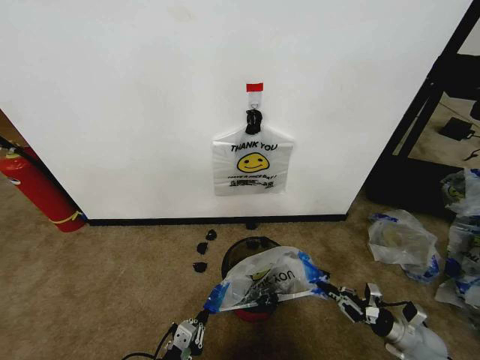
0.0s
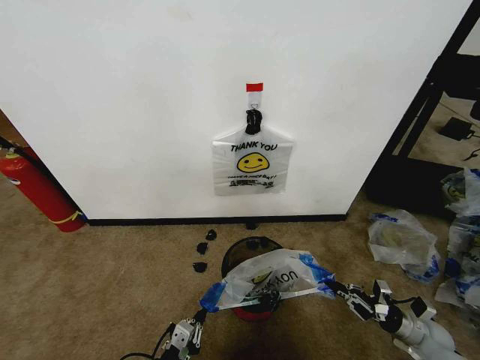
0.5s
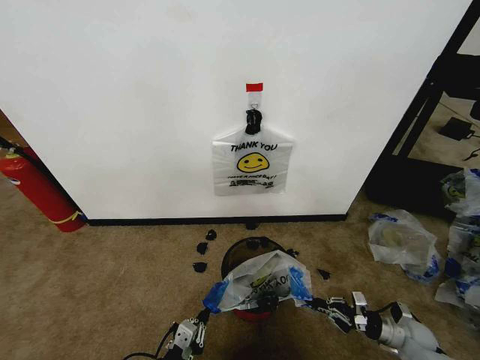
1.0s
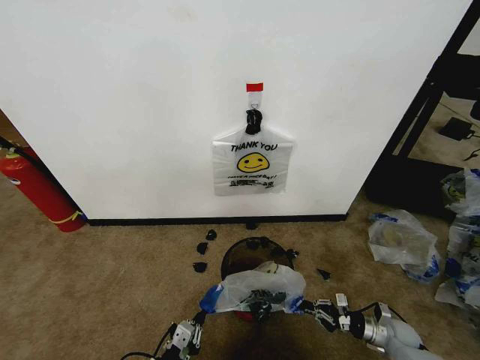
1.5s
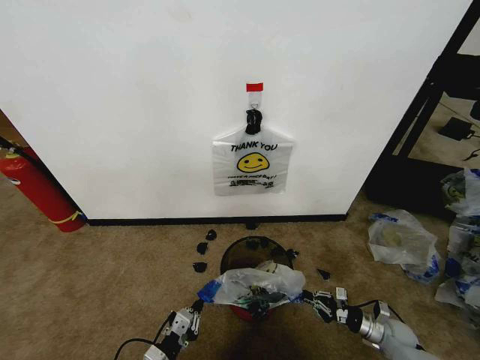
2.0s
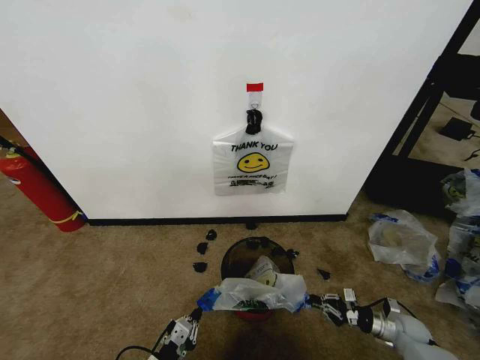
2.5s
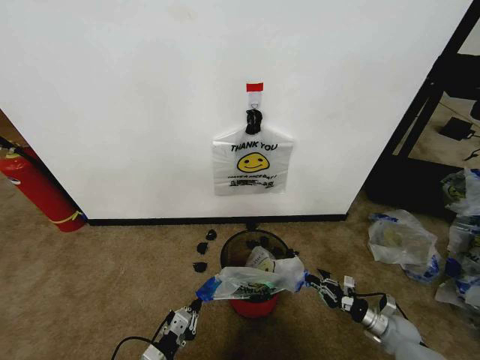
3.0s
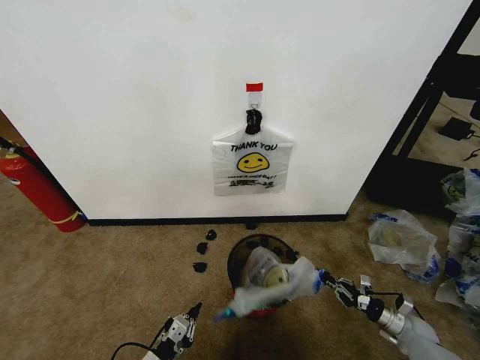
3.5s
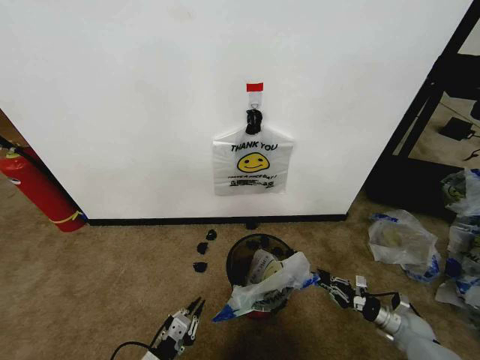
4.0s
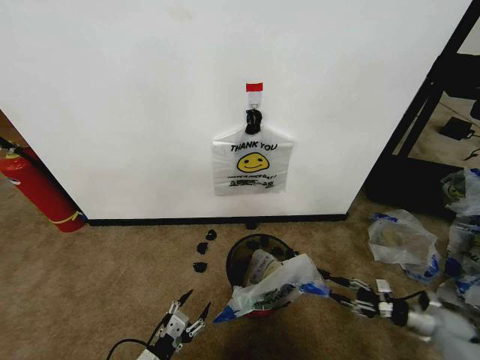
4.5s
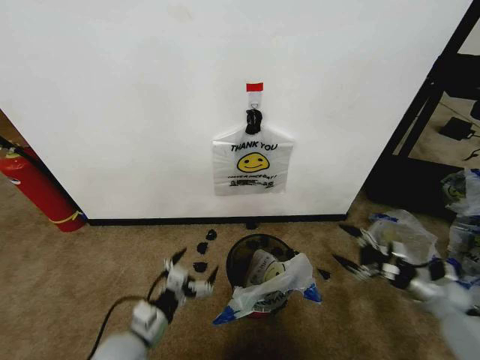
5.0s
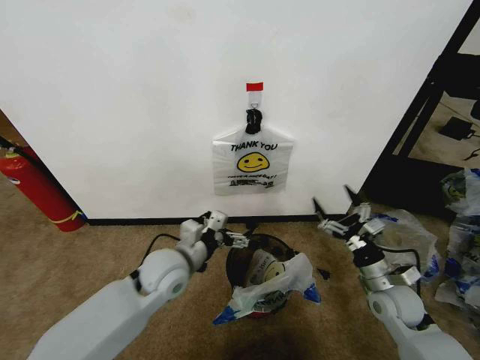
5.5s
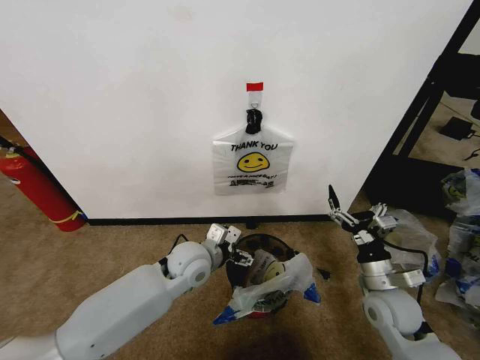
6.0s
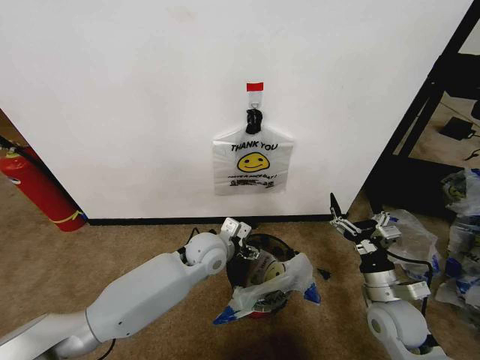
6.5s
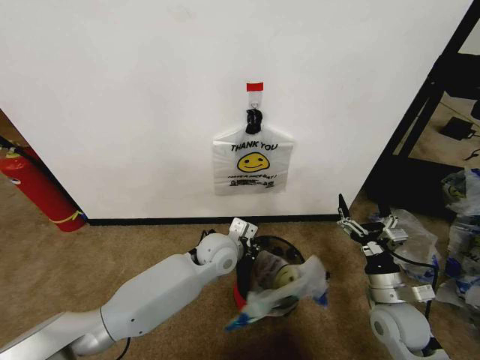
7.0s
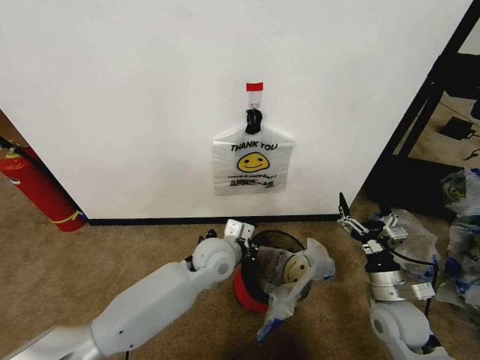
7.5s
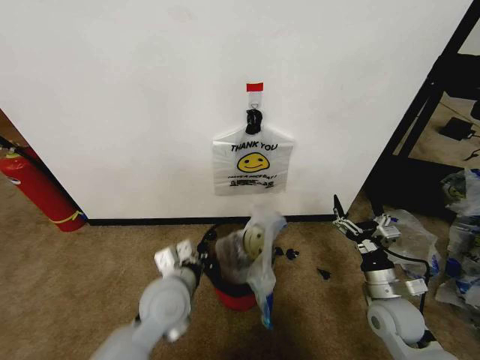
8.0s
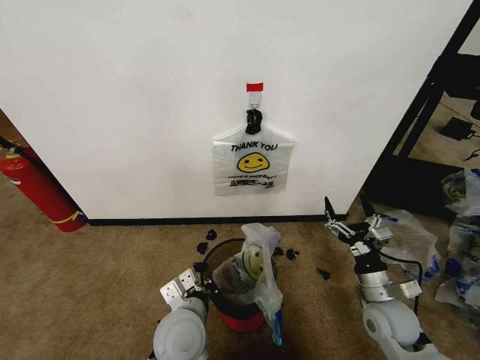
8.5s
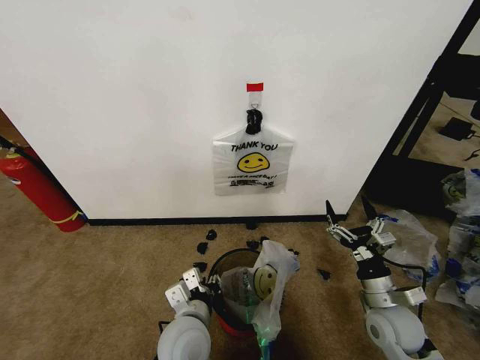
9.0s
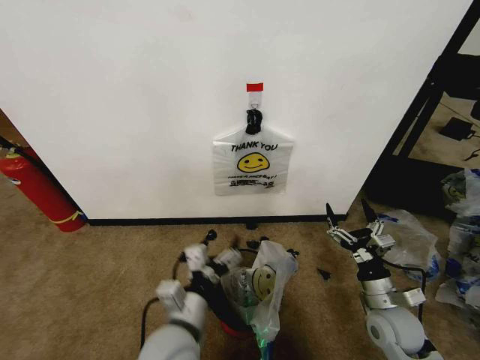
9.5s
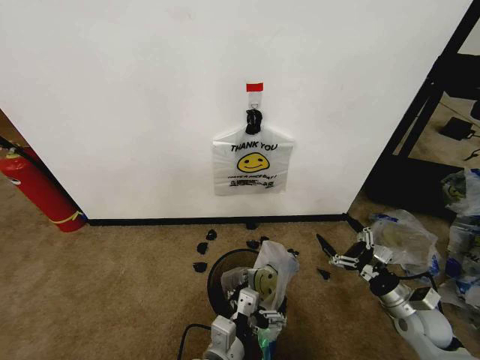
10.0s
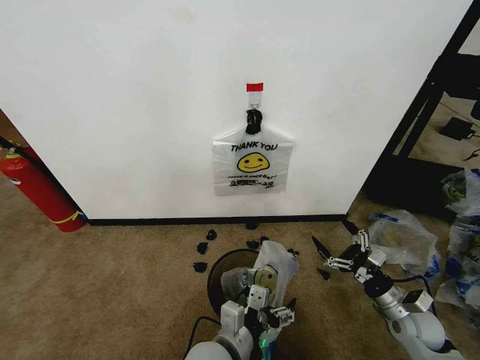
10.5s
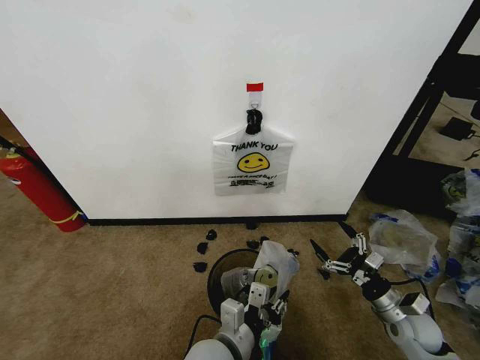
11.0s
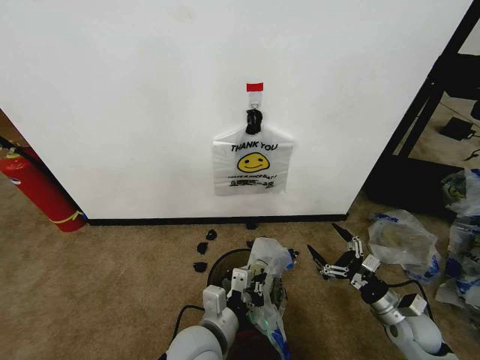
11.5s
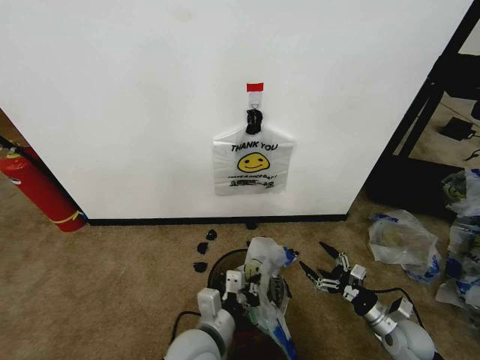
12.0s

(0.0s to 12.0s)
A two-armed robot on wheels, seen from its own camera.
Task of the whole recording: Pick up the garbage bag from the wall and place it over the trash bin.
0.0s - 2.0s: The right gripper shifts by some 5 cm.
2.0s - 4.0s: The grippers make only small movements.
4.0s - 6.0s: The right gripper moves upward and to the left, about 25 cm, and opens its fingers, while the left gripper travels forward, upward and to the right by some 30 cm, and opens up.
6.0s - 8.0s: The left gripper is displaced backward by some 10 cm, and closes.
8.0s - 10.0s: The left gripper travels backward, to the right and downward by some 15 cm, and opens up. Meanwhile the right gripper heads to the right, covering some 10 cm.
10.0s - 12.0s: The left gripper changes place by roughly 5 cm, and closes. The right gripper shifts some 5 cm downward.

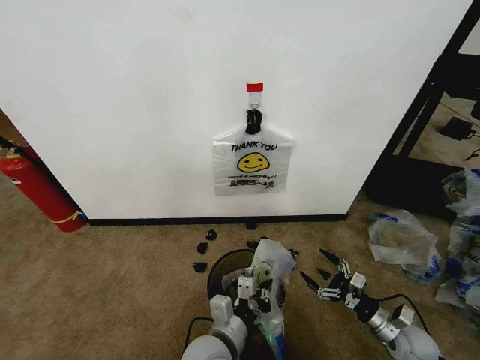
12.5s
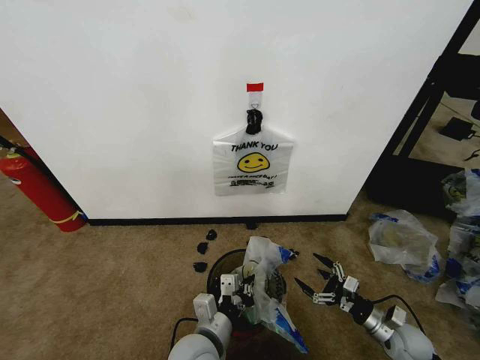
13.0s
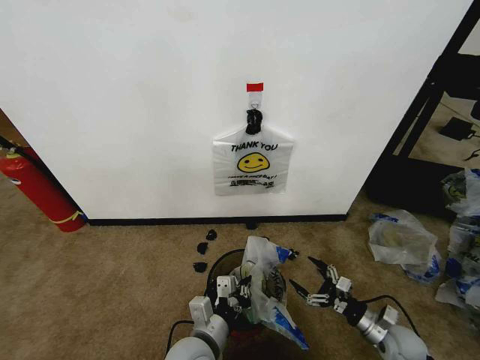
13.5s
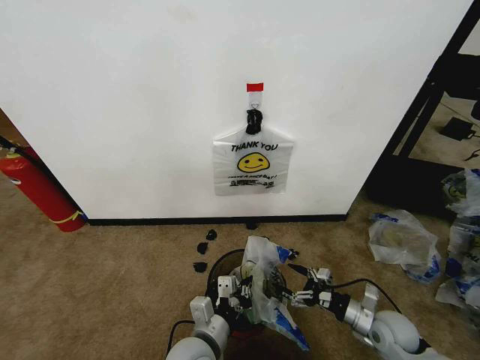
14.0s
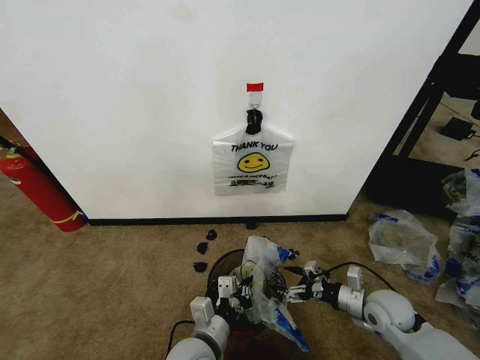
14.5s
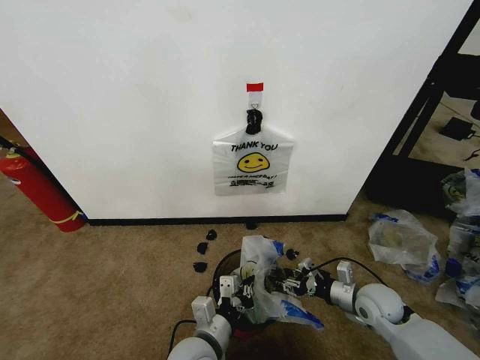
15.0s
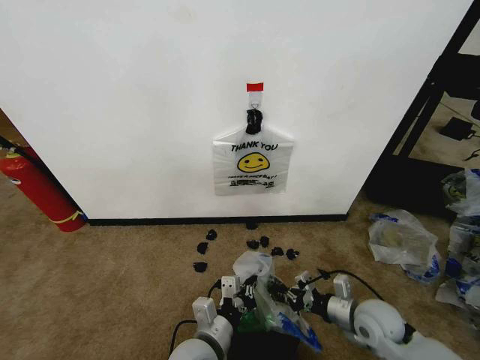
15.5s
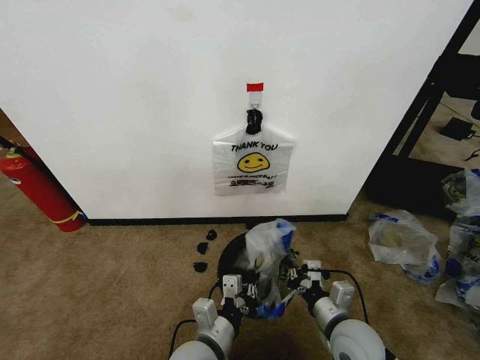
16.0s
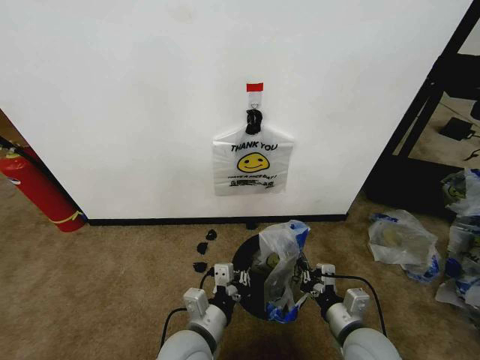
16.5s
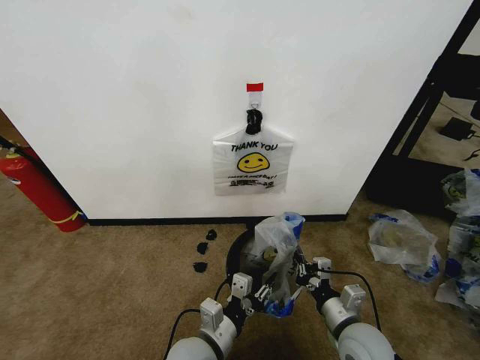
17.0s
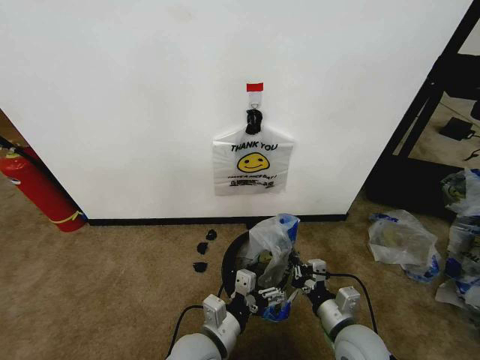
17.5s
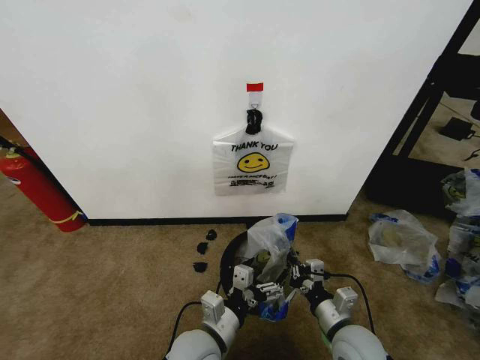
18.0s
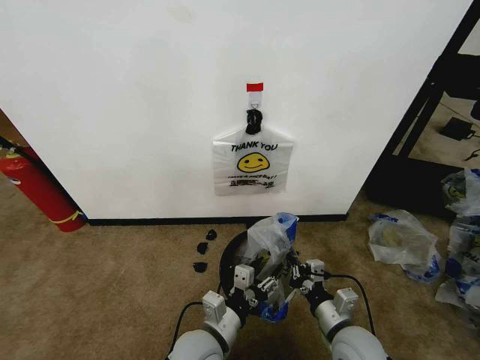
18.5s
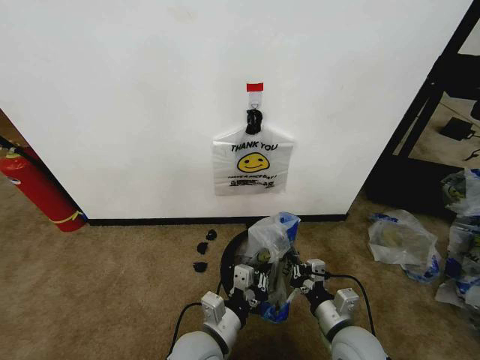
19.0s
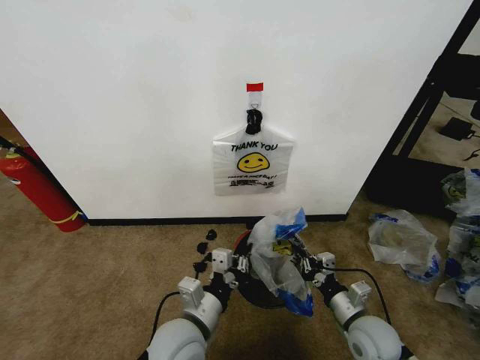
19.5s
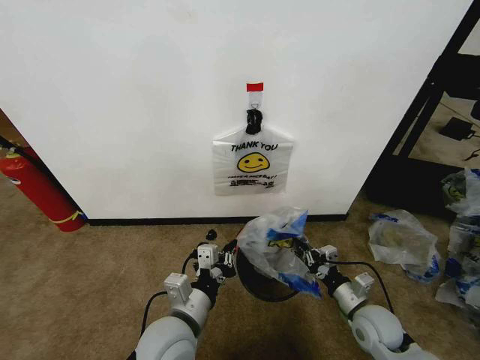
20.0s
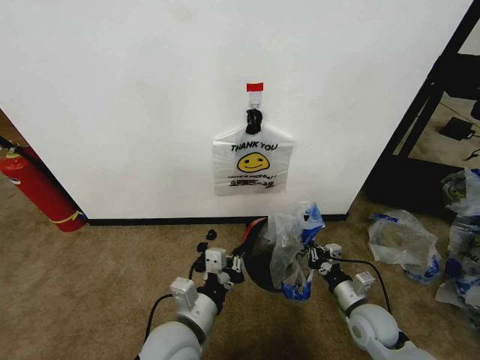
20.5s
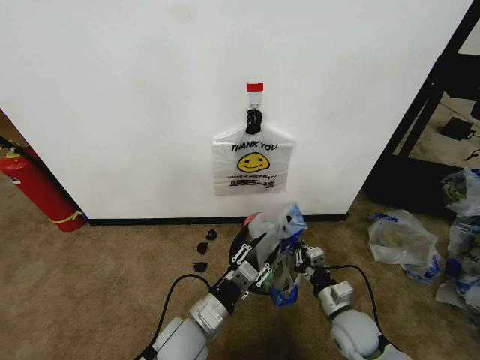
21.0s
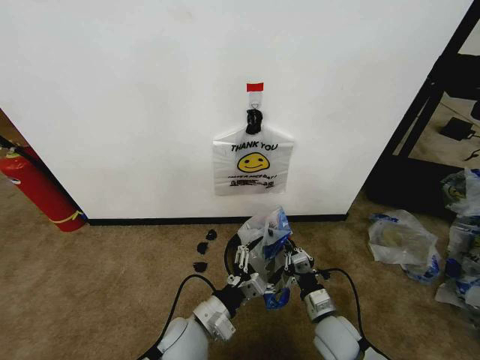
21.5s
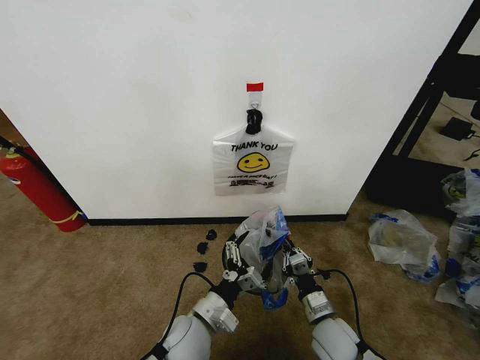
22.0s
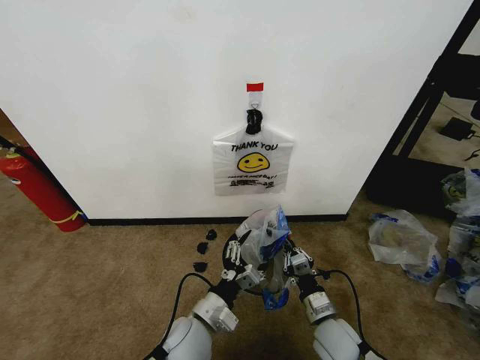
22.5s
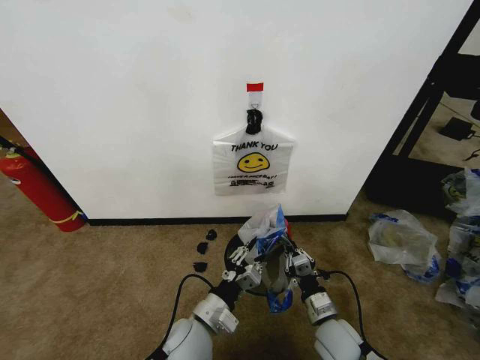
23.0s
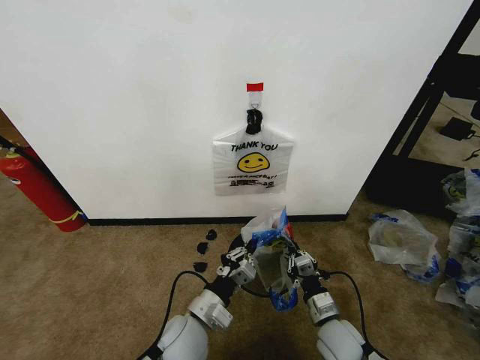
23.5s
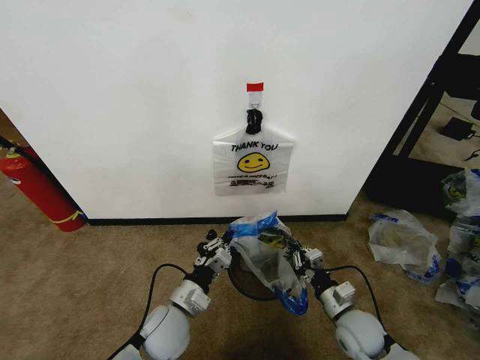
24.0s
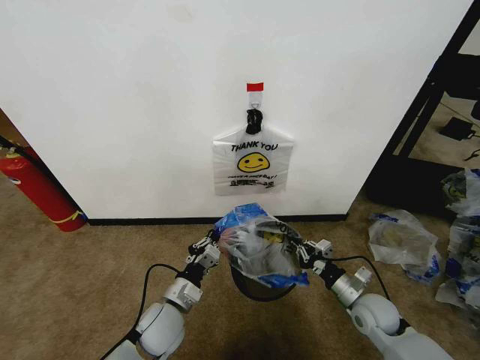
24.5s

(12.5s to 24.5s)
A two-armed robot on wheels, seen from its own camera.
Task of the whole recording: Pick up the garbage bag from the wall and place it over the trash bin.
12.5s - 14.5s: The right gripper goes about 10 cm upward, to the left and forward.
14.5s - 16.5s: The right gripper travels to the left and backward by about 15 cm, and closes its fingers.
16.5s - 18.5s: The left gripper opens.
18.5s - 20.5s: The left gripper shifts roughly 5 cm upward, and closes its fingers. Meanwhile the right gripper goes some 10 cm to the right and forward.
20.5s - 22.5s: The right gripper is displaced to the left by roughly 10 cm. The left gripper travels downward by roughly 10 cm, and opens its fingers.
22.5s - 24.5s: The right gripper goes about 10 cm to the right and forward. The left gripper heads to the left, covering some 5 cm, and closes its fingers.

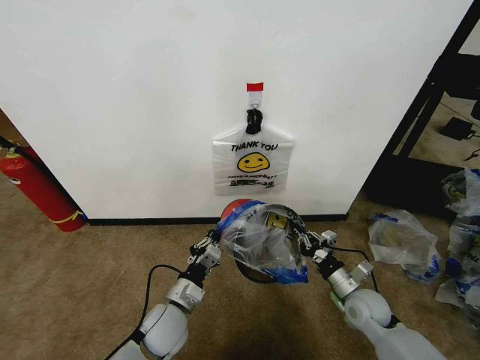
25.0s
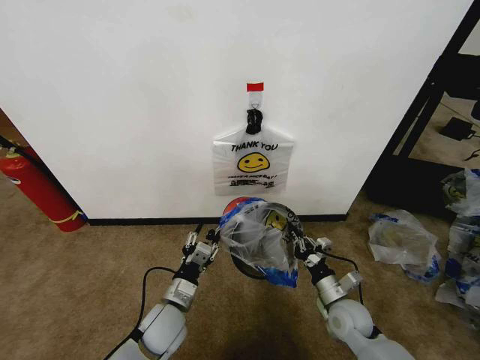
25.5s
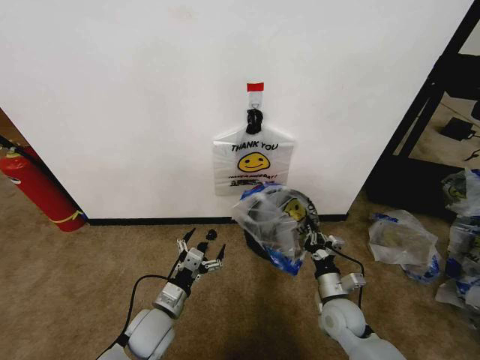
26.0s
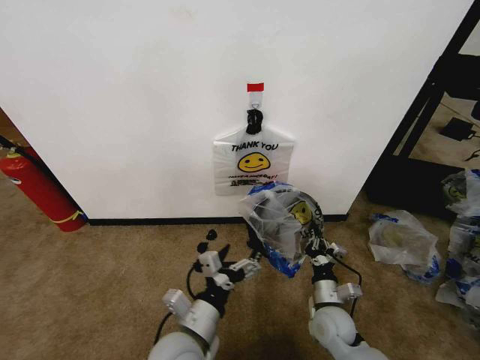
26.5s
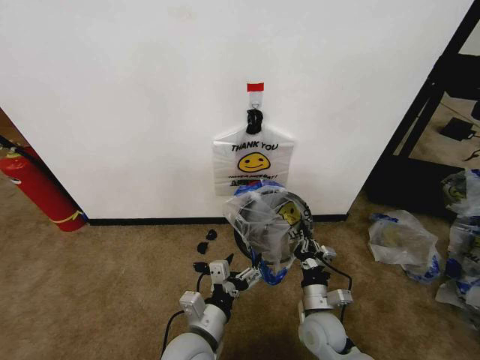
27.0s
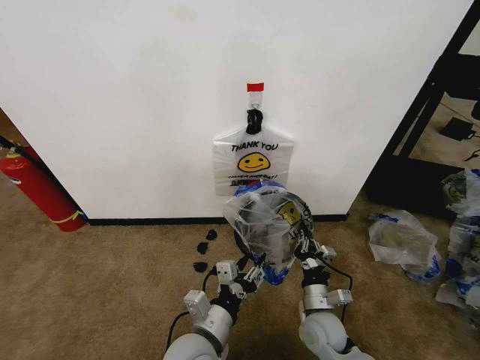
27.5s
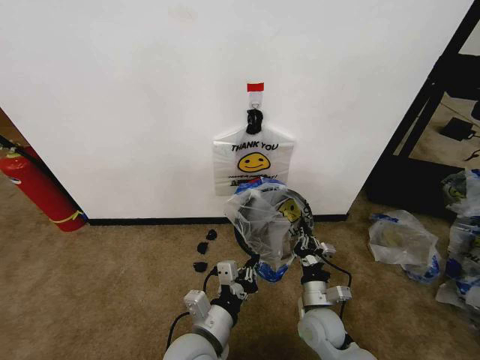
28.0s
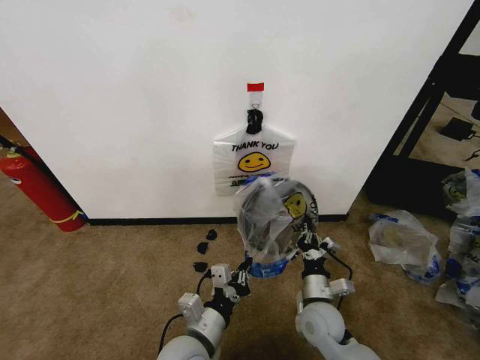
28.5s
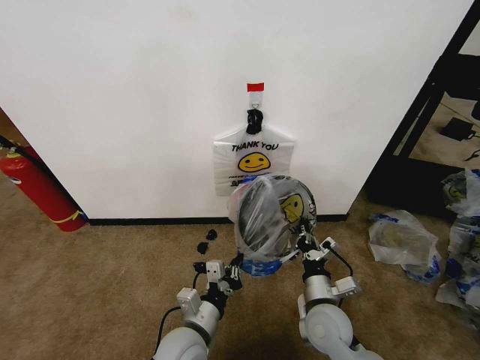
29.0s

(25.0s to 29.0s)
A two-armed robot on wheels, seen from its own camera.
Task of the whole recording: Pick up the garbage bag from the wall and place it over the trash bin.
25.0s - 27.0s: The left gripper is displaced backward and to the right by approximately 10 cm, and opens; the right gripper shifts roughly 10 cm to the left.
27.0s - 29.0s: The left gripper closes its fingers. Meanwhile the right gripper is displaced upward by approximately 5 cm.
